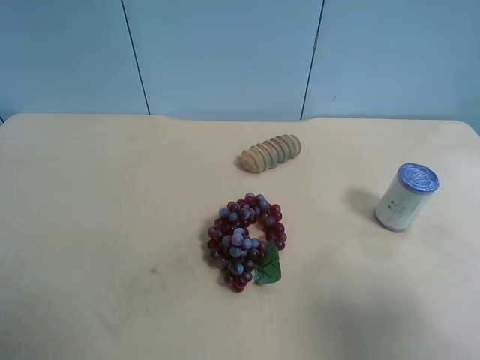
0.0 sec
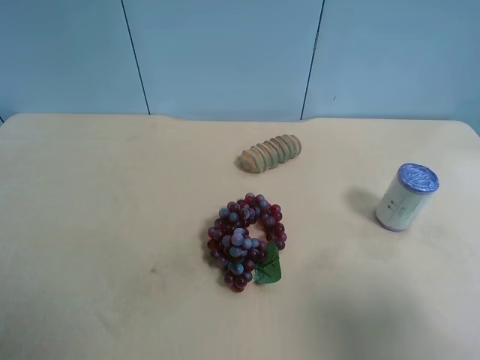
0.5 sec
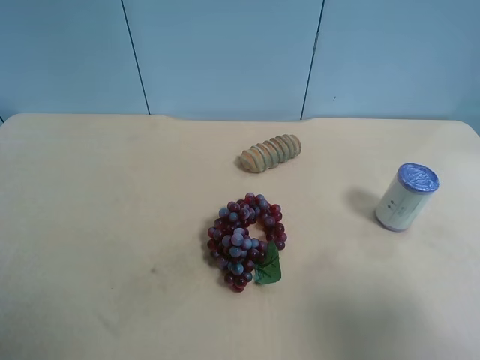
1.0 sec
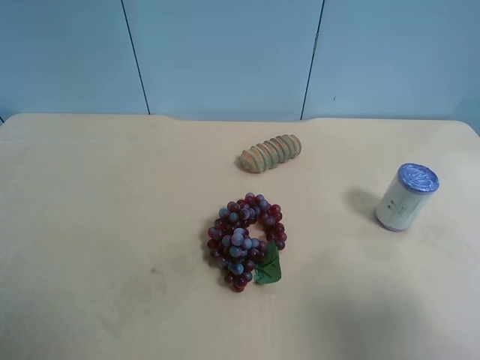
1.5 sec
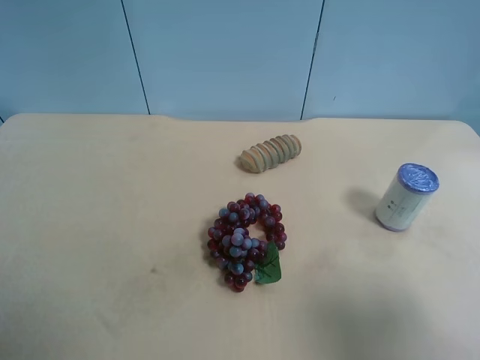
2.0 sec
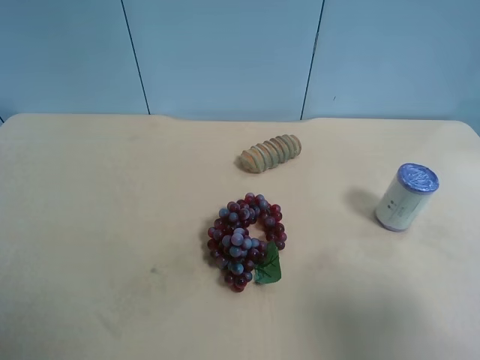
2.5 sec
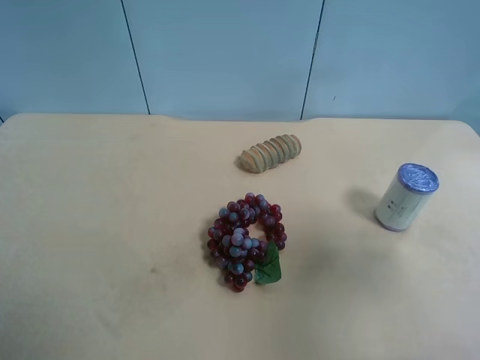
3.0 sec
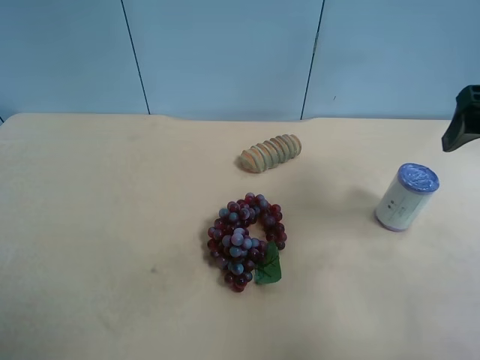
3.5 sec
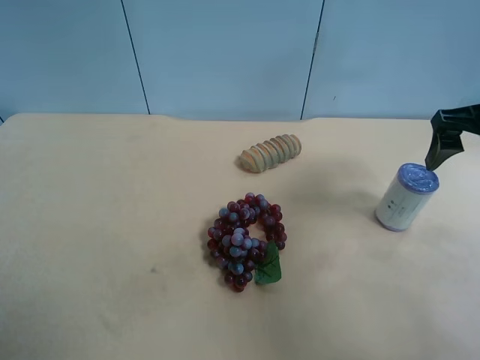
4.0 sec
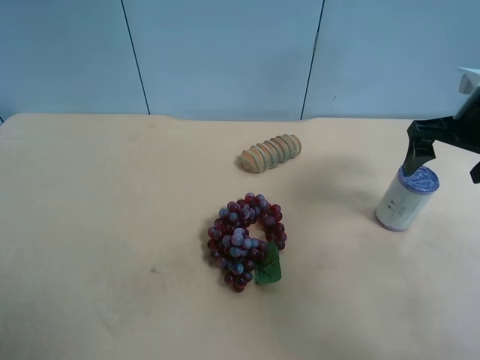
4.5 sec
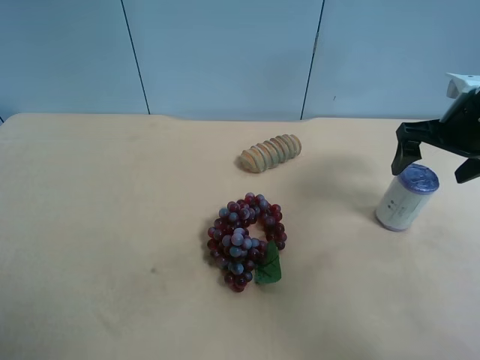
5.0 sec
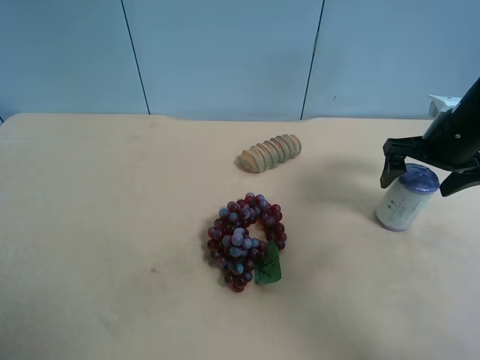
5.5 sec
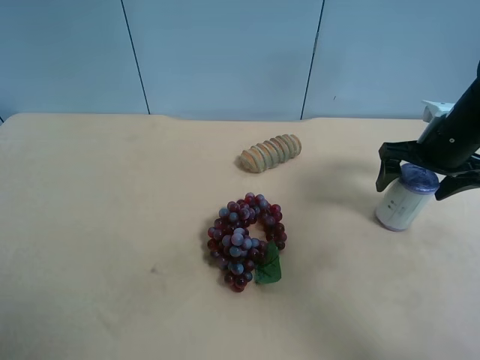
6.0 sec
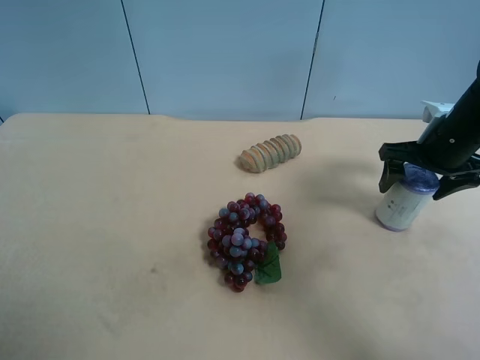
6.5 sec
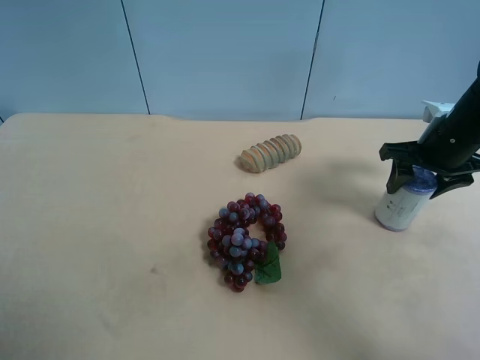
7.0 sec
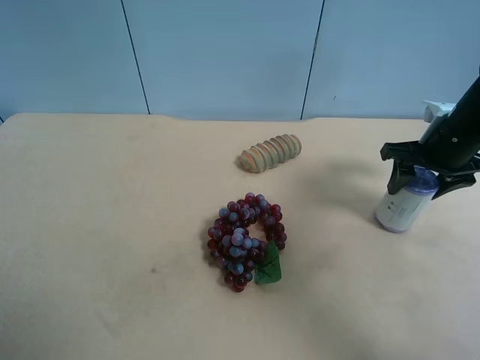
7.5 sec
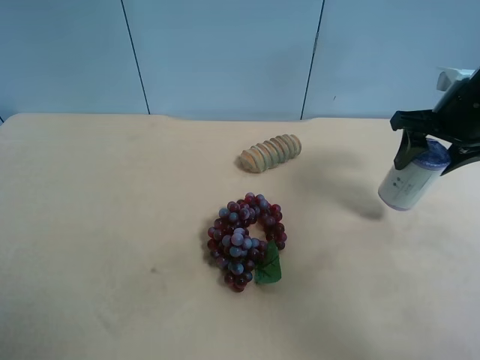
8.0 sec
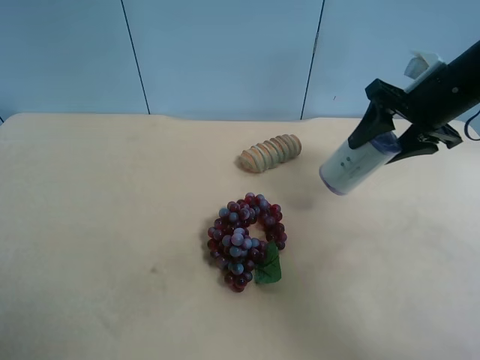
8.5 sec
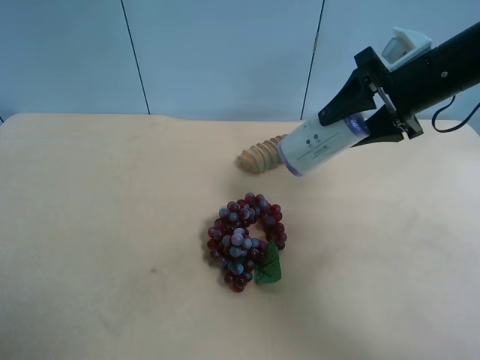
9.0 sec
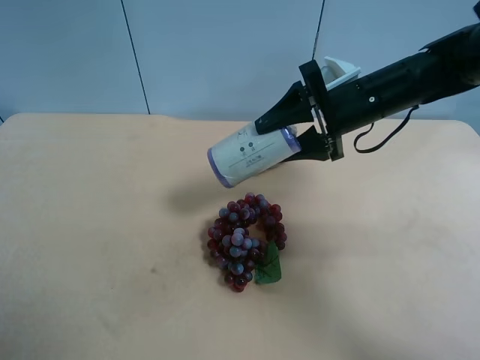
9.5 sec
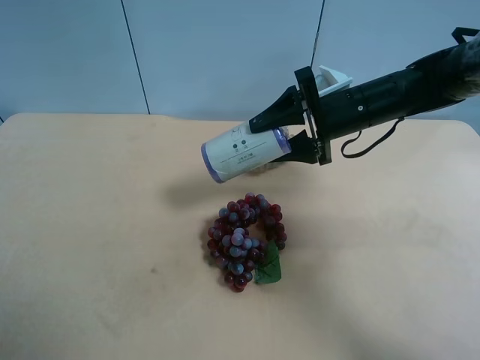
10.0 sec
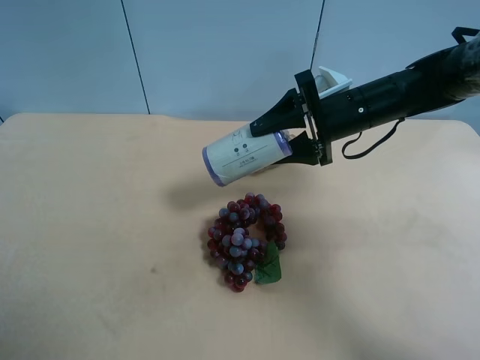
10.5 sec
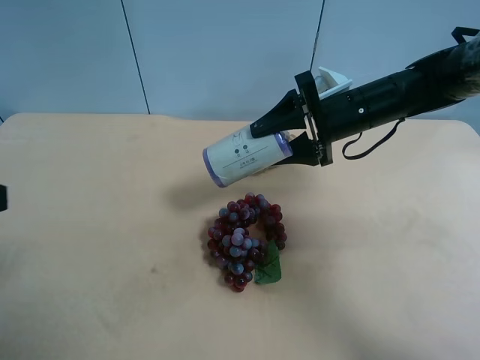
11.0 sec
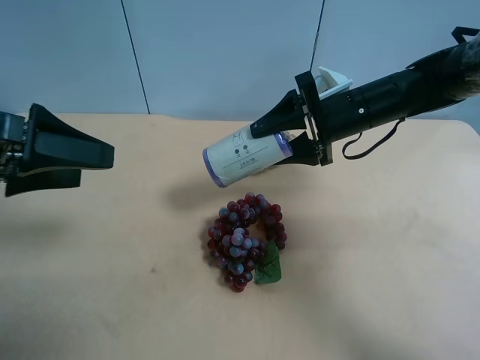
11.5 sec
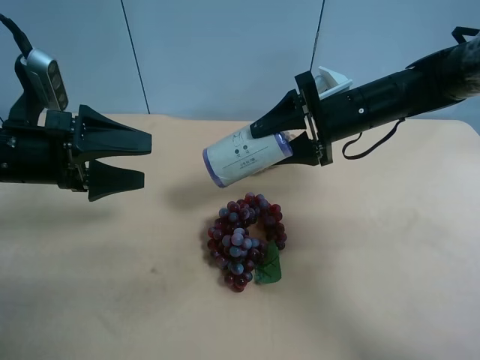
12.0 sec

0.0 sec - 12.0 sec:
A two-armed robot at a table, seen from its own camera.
Task of the whole recording: use the right gripper to pick up the item and transfer it from the right gripper to the left gripper.
0.0 sec - 2.0 sec: The two grippers keep their place.
2.0 sec - 4.0 sec: The right gripper moves forward, roughly 25 cm.
4.0 sec - 6.0 sec: The right gripper shifts some 10 cm downward and forward.
6.0 sec - 8.0 sec: The right gripper moves upward, roughly 5 cm, and closes up.
8.0 sec - 10.0 sec: The right gripper heads to the left, covering about 15 cm.
10.0 sec - 12.0 sec: The left gripper travels forward by roughly 25 cm.

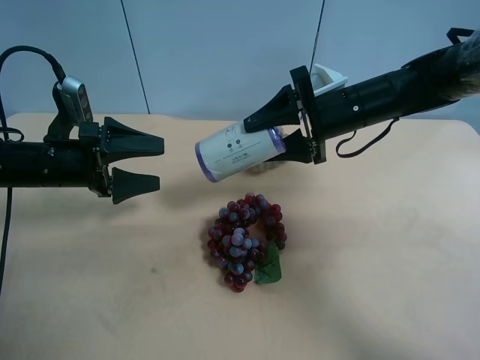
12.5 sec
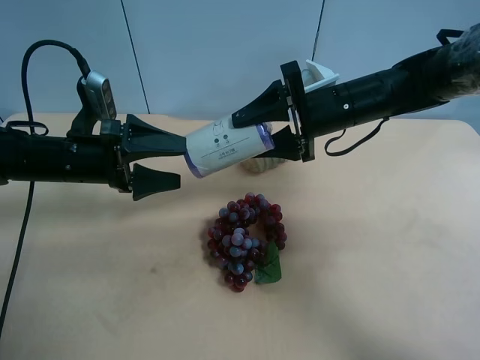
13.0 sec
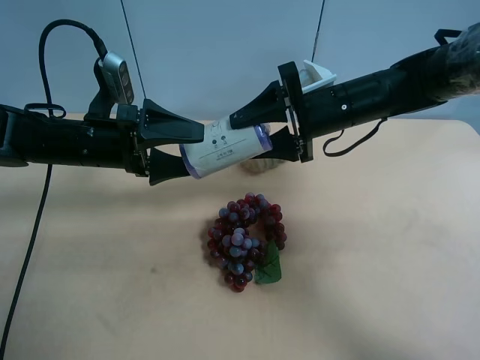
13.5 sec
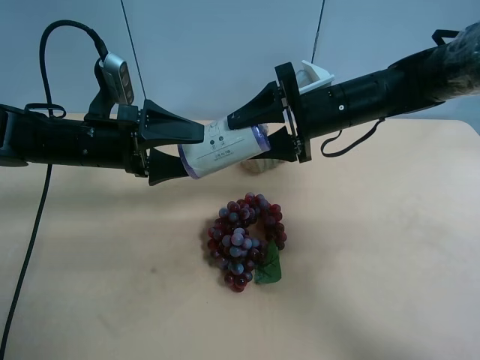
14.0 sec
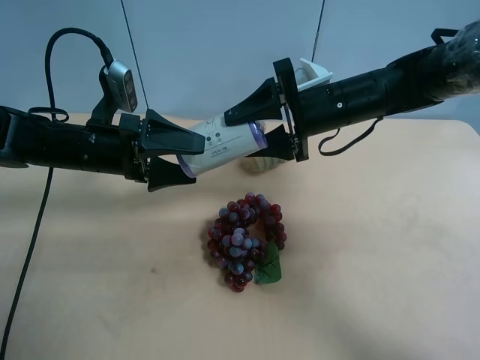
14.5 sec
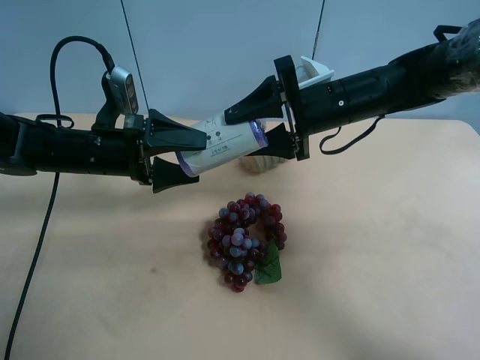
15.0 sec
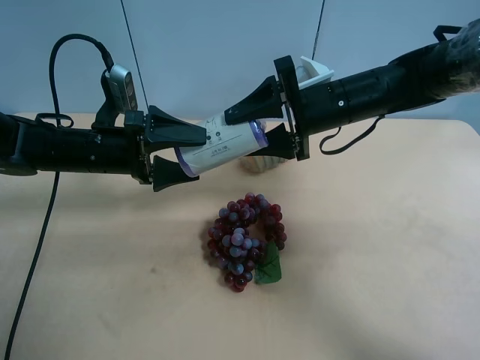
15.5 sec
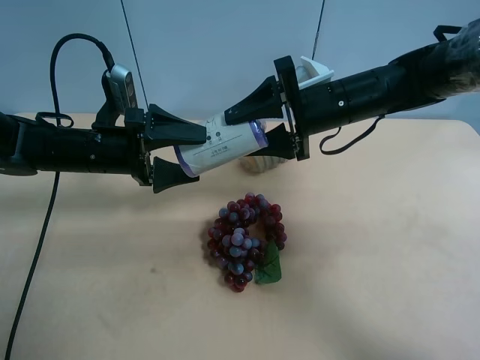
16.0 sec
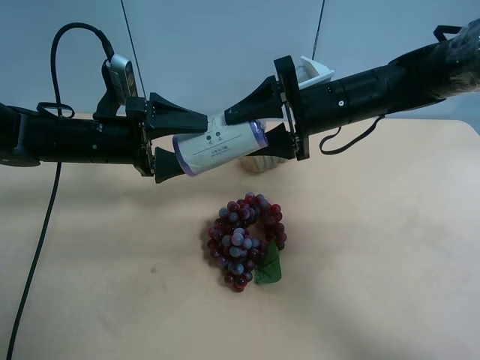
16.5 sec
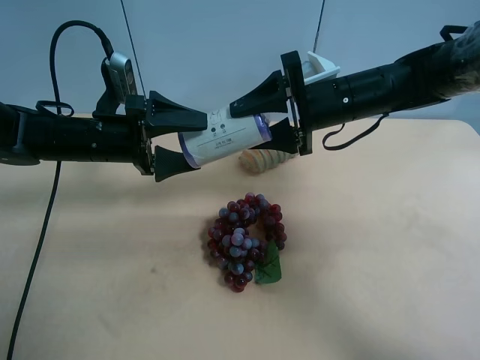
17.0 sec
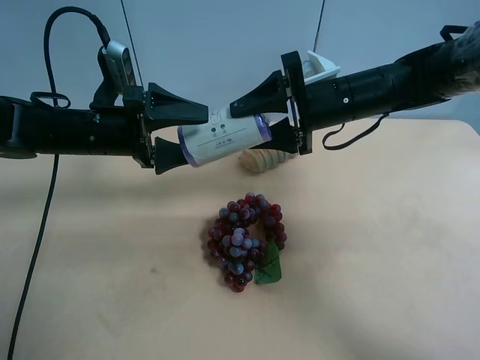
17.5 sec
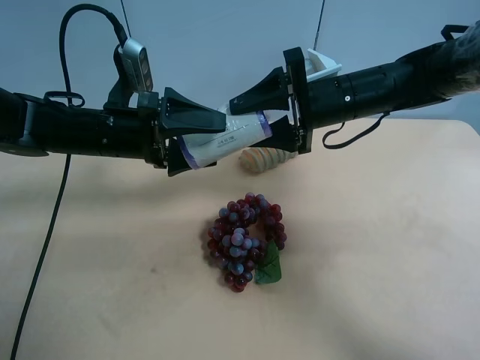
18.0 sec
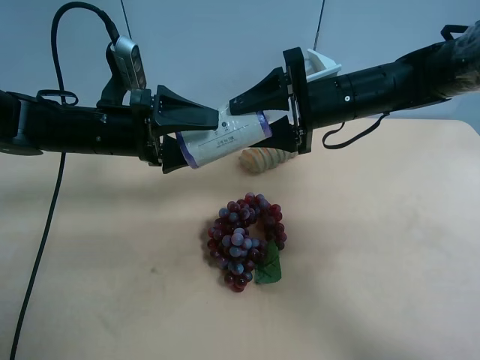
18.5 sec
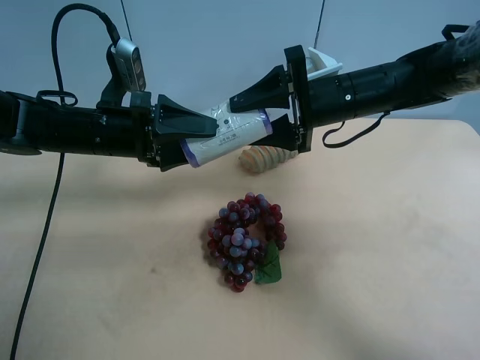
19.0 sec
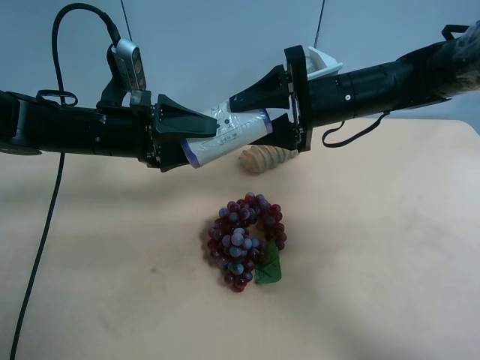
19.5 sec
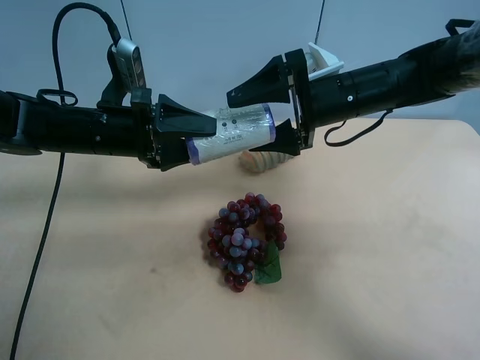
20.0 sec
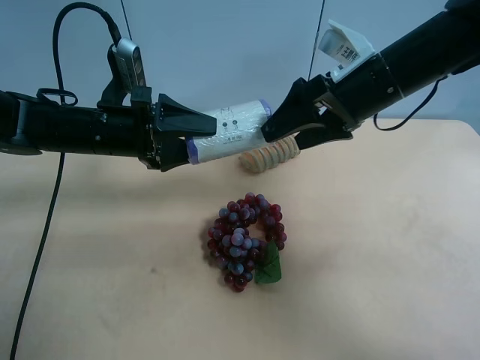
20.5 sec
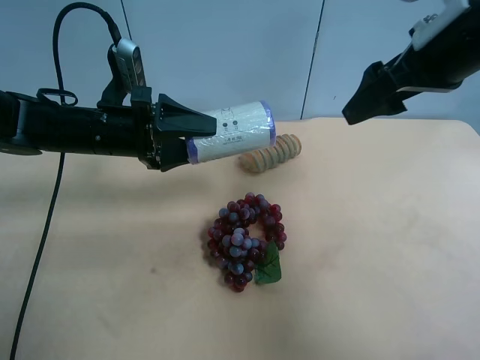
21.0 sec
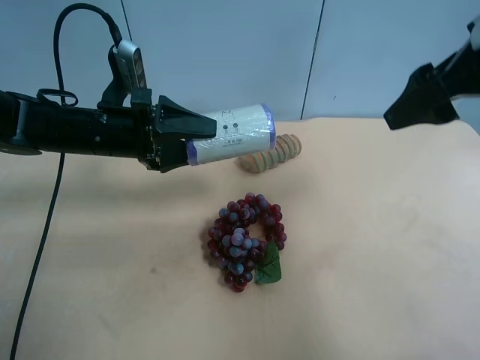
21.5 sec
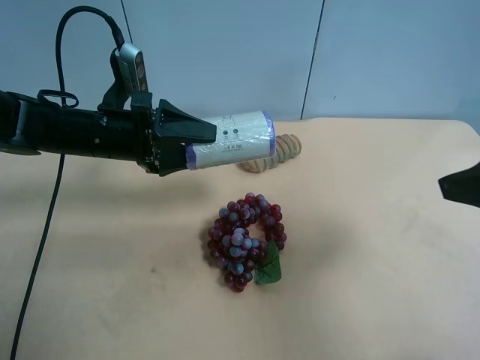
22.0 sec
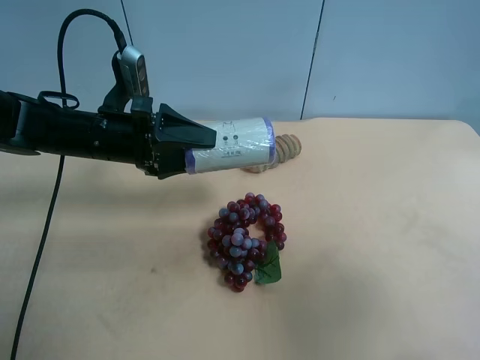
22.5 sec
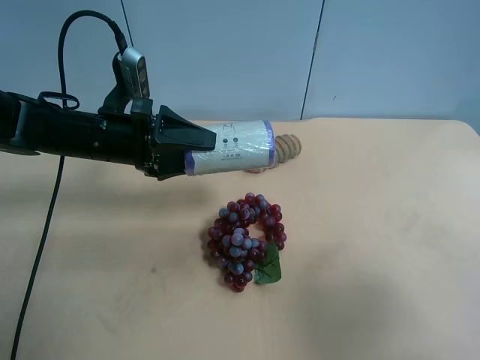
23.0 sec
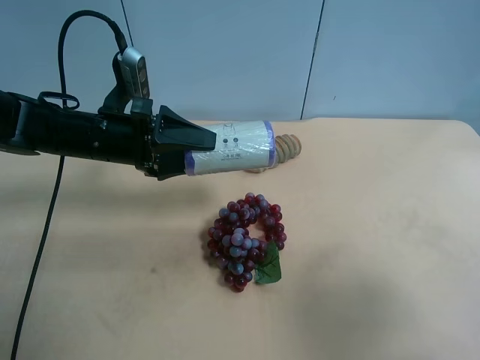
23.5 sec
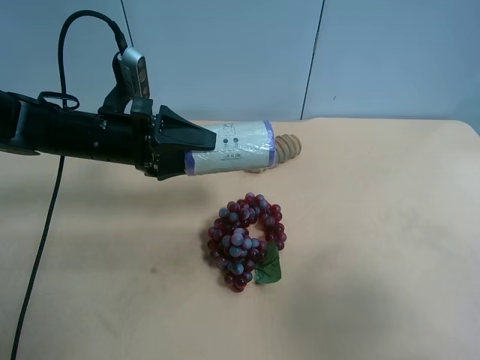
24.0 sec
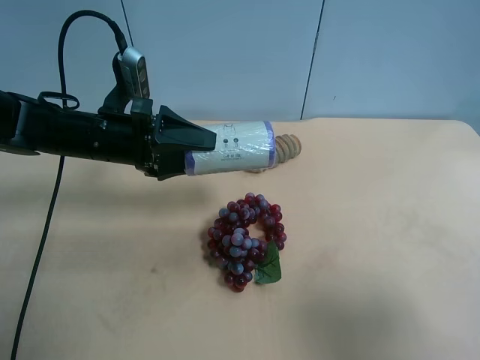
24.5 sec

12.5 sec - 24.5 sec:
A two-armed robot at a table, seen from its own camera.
Task of the whole recording: use the right gripper to pick up the item and transfer it from the right gripper to the left gripper.
12.5 sec - 14.5 sec: The left gripper goes some 5 cm to the right.
14.5 sec - 18.5 sec: The grippers make only small movements.
18.5 sec - 20.5 sec: The right gripper changes place by some 5 cm, and opens. The left gripper closes its fingers.
20.5 sec - 22.5 sec: The right gripper goes about 30 cm backward.

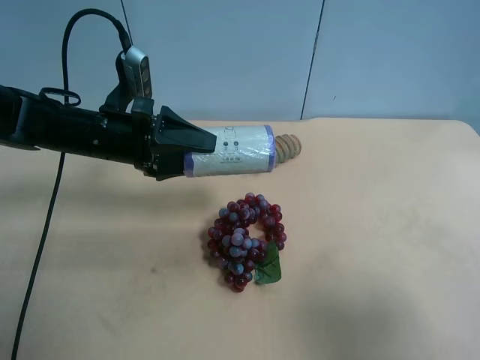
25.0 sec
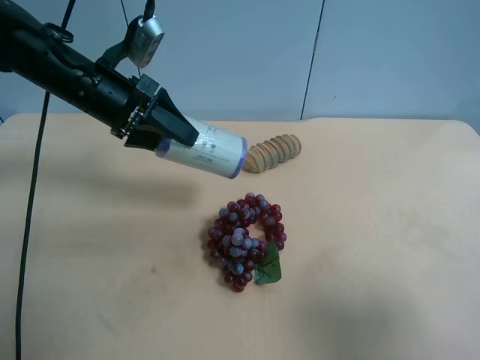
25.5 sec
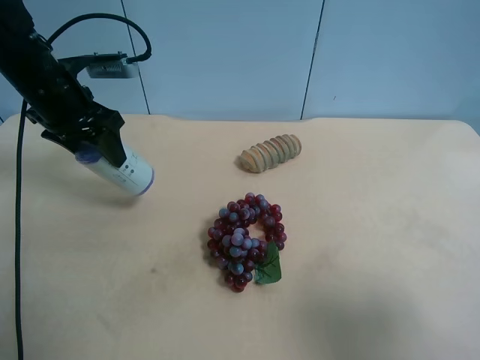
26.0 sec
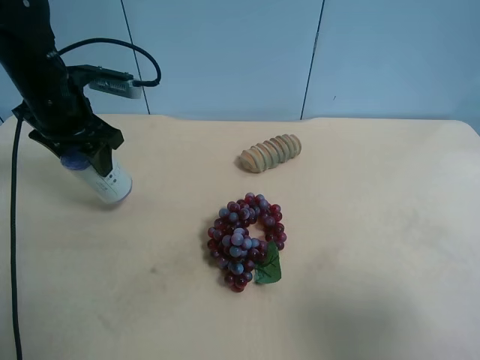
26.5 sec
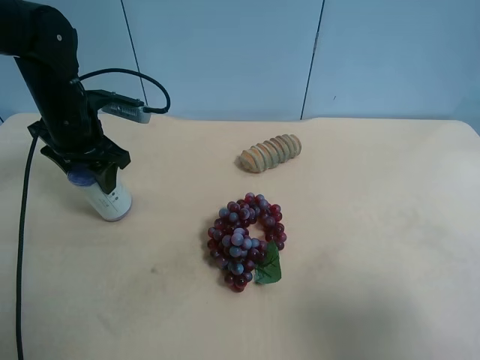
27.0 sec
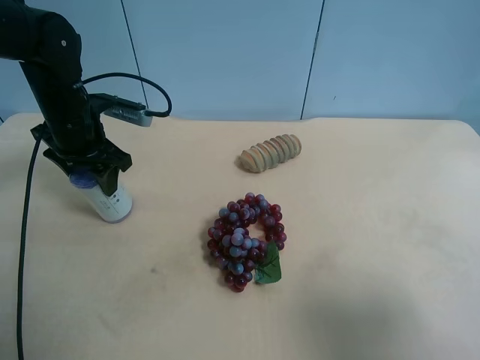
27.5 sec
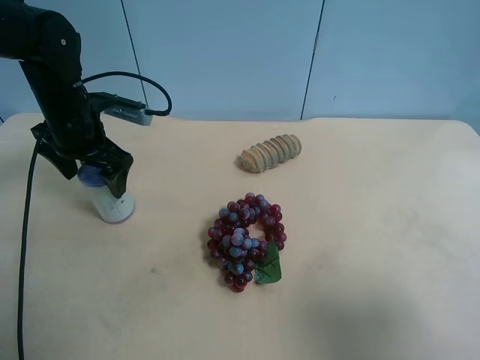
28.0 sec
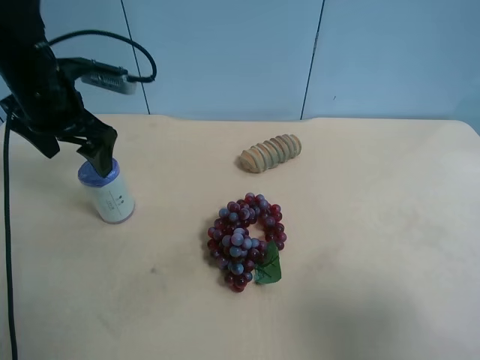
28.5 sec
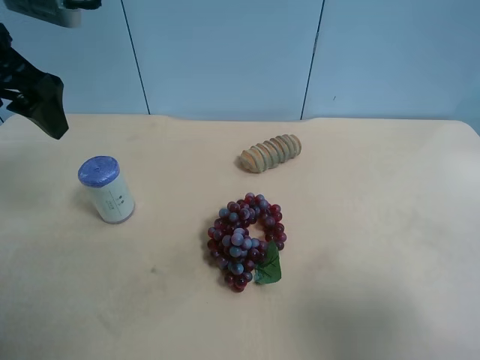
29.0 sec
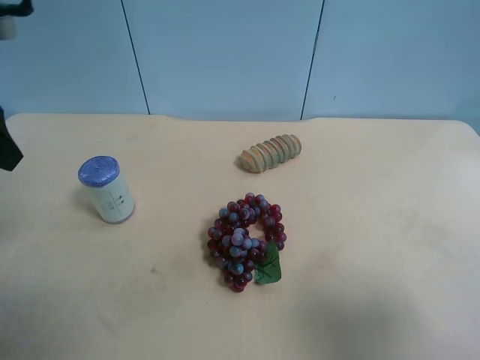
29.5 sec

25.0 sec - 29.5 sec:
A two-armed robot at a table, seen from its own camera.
Task of the whole recording: use the right gripper to pick up the item and transfer it from the right gripper to the left gripper.
25.0 sec - 27.0 sec: The left gripper shifts approximately 5 cm to the left.
27.0 sec - 29.5 sec: The left gripper moves backward and upward, some 20 cm, and opens its fingers.
